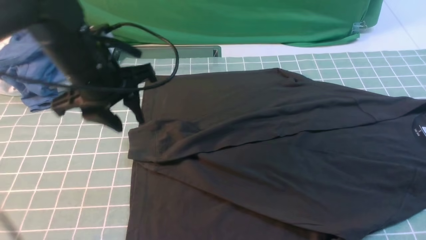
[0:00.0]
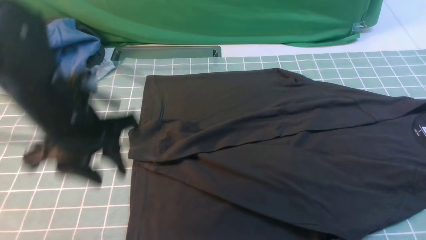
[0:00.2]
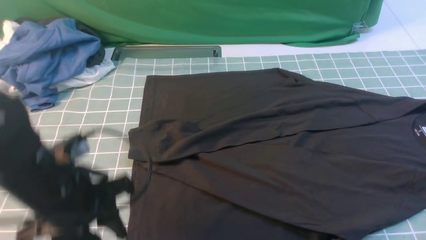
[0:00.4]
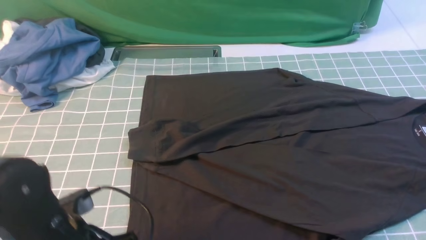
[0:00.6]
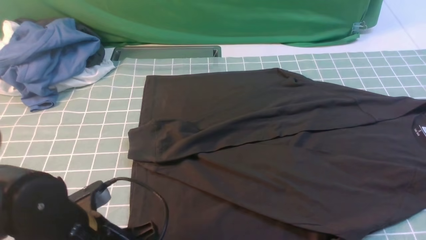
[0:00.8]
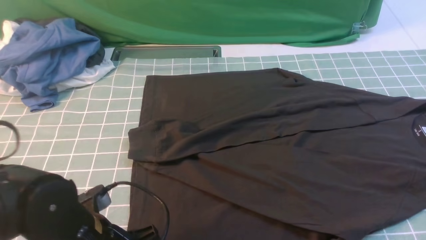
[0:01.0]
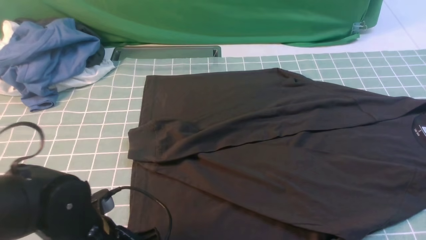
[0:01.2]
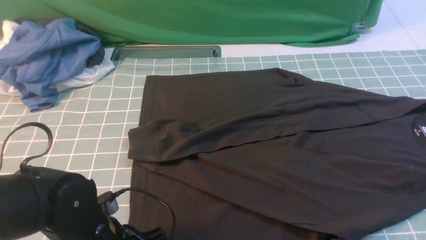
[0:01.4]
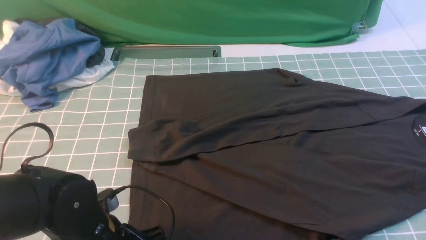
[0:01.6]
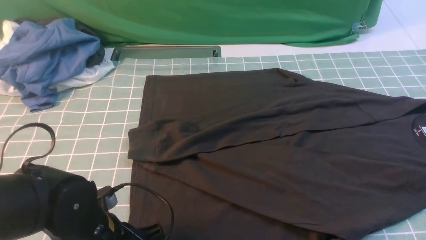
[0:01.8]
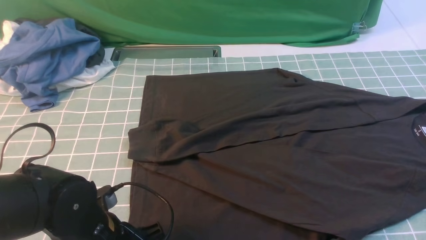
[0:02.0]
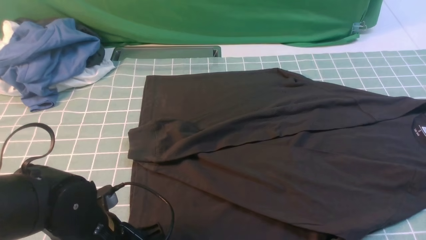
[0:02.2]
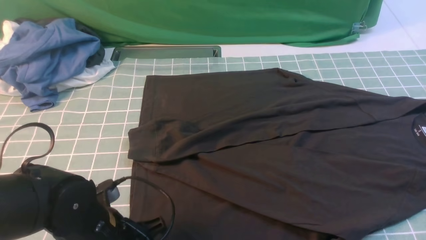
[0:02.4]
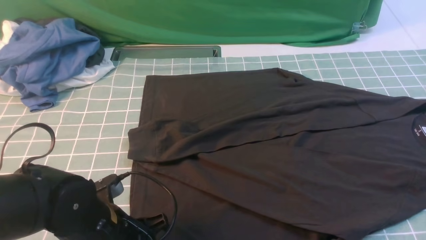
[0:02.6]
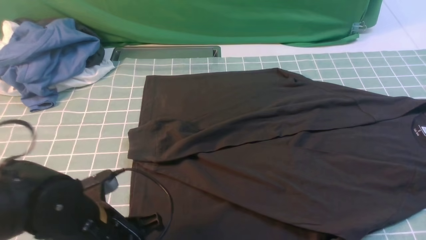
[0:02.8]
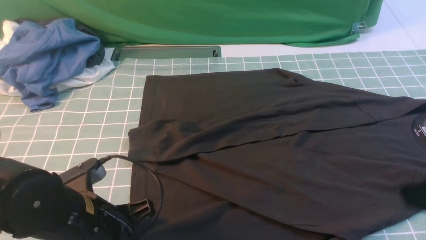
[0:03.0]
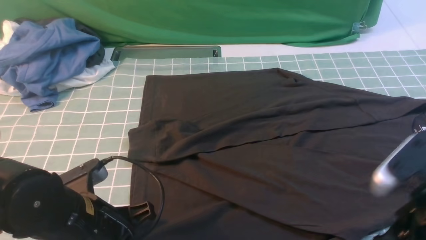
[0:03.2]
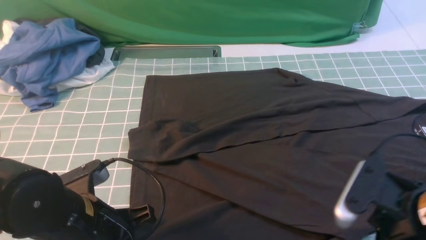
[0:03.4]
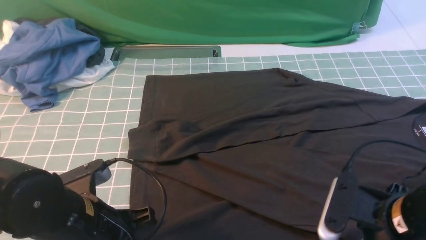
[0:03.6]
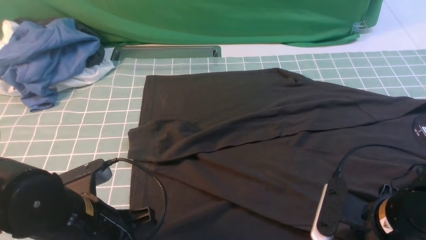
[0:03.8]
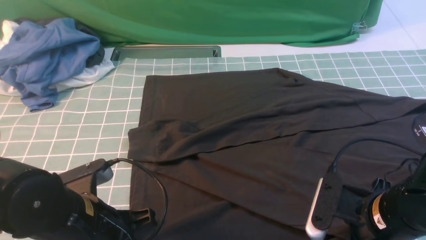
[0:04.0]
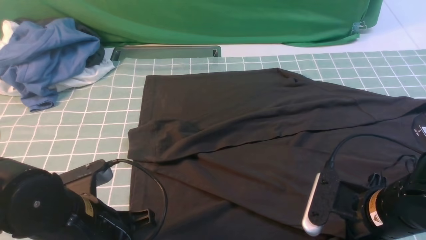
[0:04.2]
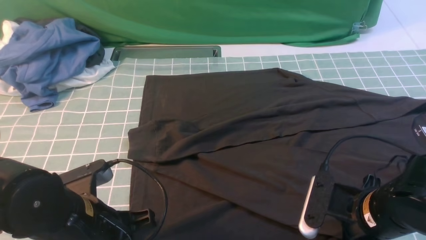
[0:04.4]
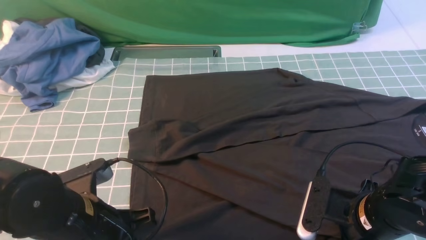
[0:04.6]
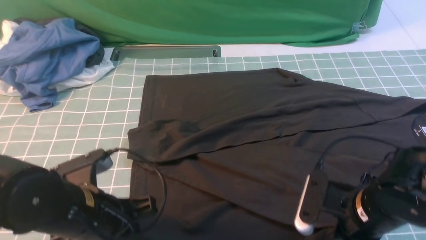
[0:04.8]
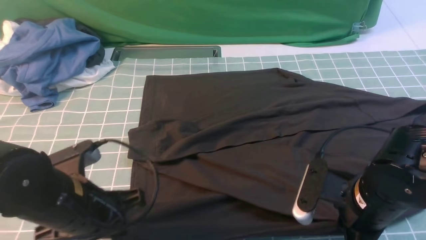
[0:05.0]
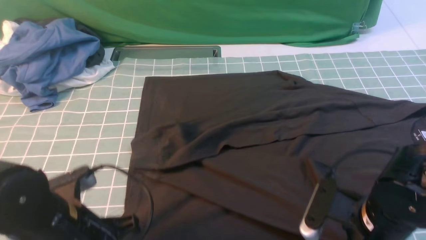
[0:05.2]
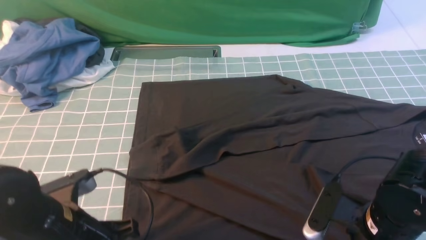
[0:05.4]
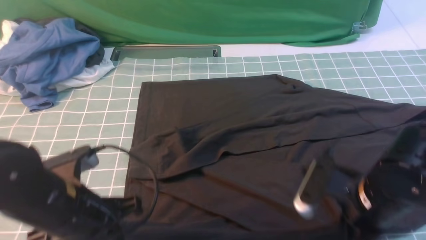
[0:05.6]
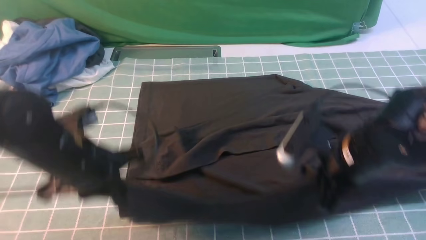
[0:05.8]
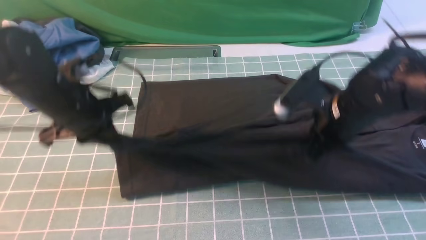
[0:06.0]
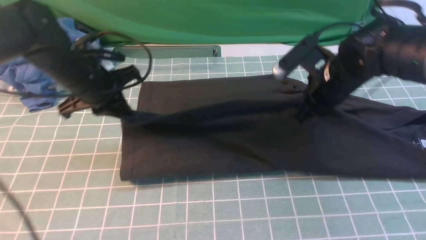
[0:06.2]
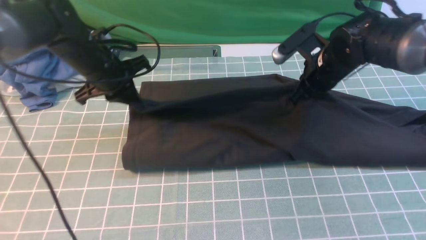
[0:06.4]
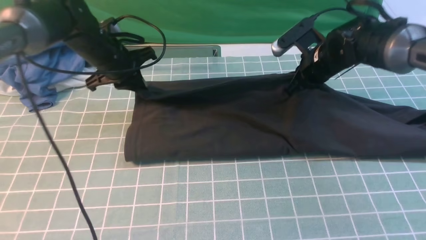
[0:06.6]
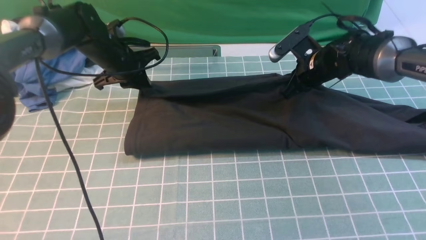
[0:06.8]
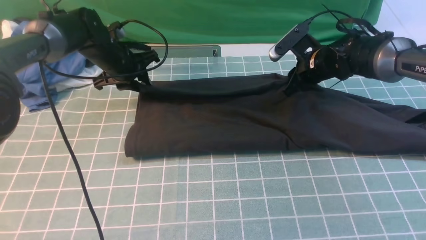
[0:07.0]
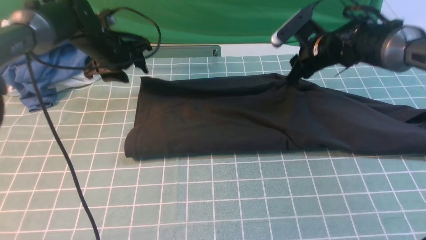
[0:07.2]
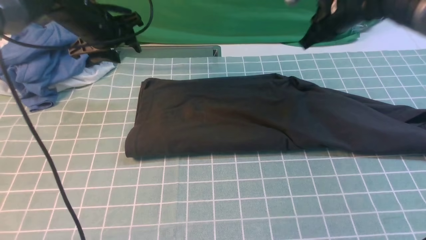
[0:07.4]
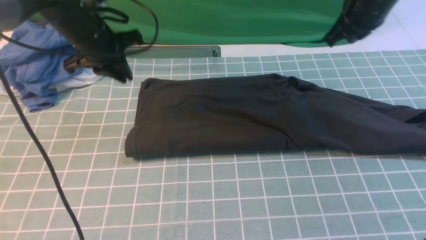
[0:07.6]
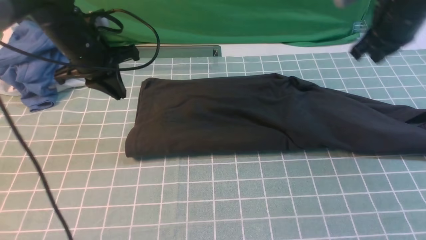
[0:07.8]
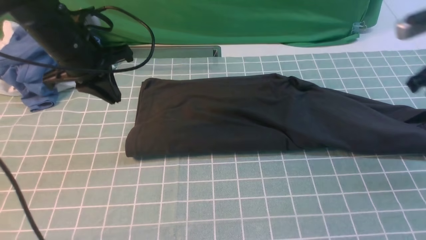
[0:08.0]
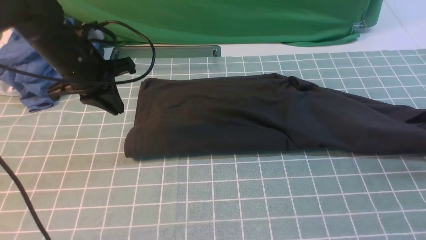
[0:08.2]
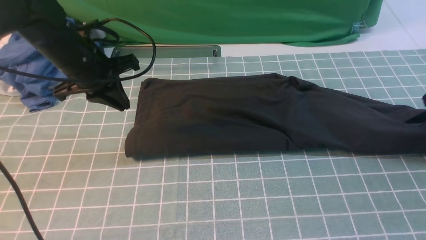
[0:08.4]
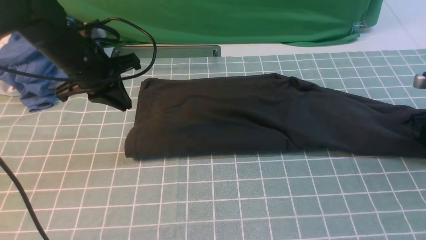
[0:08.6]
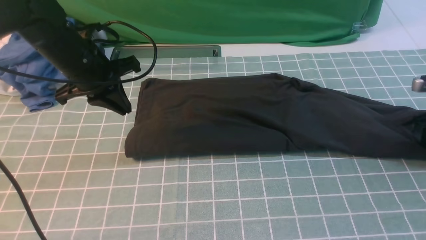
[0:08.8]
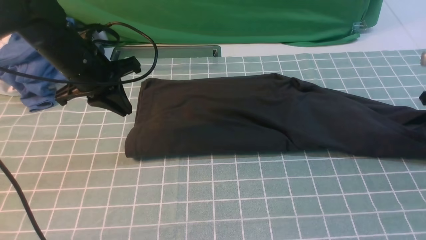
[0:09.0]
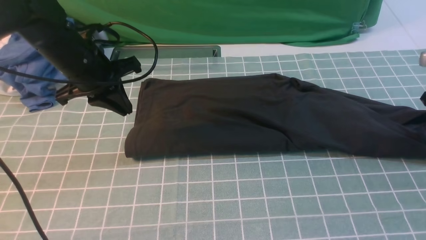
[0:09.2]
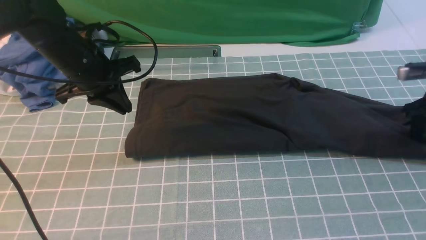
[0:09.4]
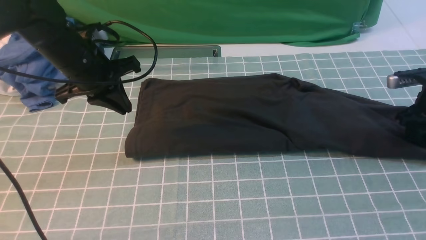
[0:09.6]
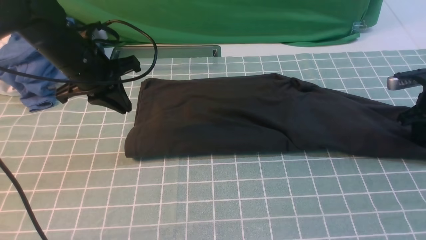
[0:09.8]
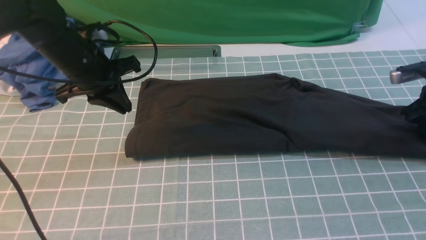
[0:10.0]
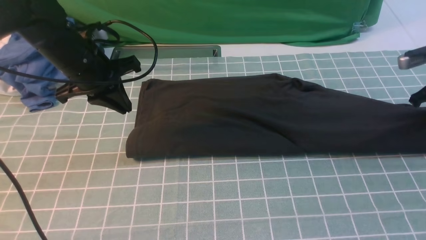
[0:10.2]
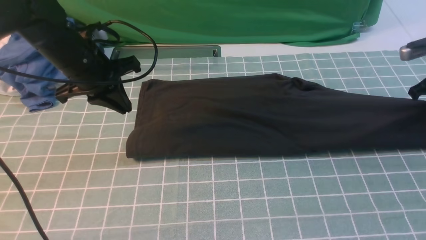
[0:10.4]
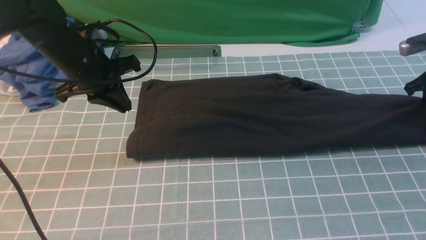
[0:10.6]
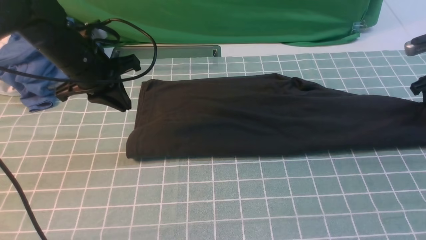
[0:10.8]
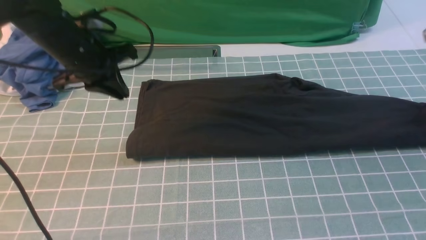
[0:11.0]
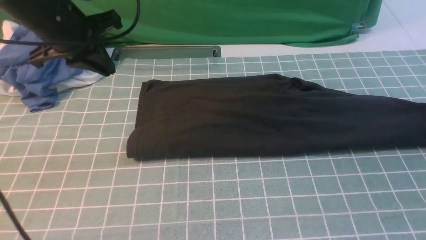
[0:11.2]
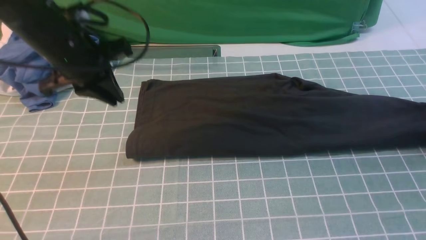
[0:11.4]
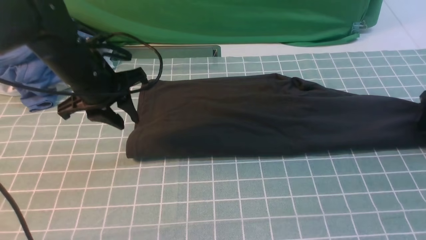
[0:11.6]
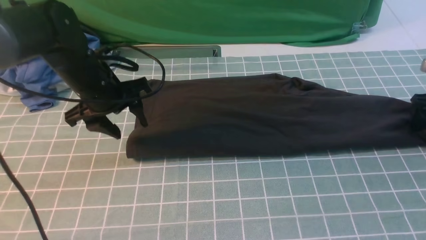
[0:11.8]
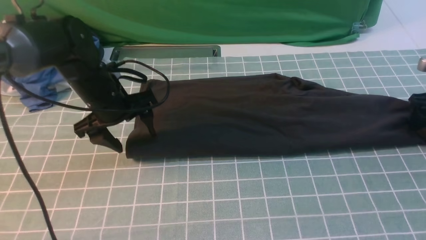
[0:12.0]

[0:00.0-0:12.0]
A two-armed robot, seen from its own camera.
Step, 0.0 to 5.4 s: use both arms simultaneously to clamp the lower edge of the clothing fabric.
Step, 5.8 to 7.4 s: use both arms to drag the lower edge of the fabric forward and fold it over the upper edge.
0.0 to 1.6 s: The left gripper moves backward and downward, some 20 cm.
1.6 to 3.0 s: The left gripper closes its fingers. Meanwhile the right gripper shifts by approximately 5 cm, and opens.
3.0 to 4.4 s: The right gripper shifts about 15 cm downward and to the left.
4.4 to 6.0 s: The left gripper moves forward, about 15 cm. The right gripper heads forward and upward, covering some 15 cm, and closes its fingers.
6.0 to 7.6 s: The right gripper heads forward, upward and to the right, covering approximately 15 cm, and opens, then closes again, while the left gripper is displaced forward by roughly 10 cm, and opens and closes again.
7.6 to 9.0 s: The left gripper moves backward, roughly 5 cm. Meanwhile the right gripper is displaced to the right and downward by about 25 cm, and opens up.
9.0 to 10.4 s: The right gripper closes.
10.4 to 12.0 s: The left gripper travels downward by some 5 cm, and opens up; the right gripper ends up roughly 5 cm from where it was, and opens.

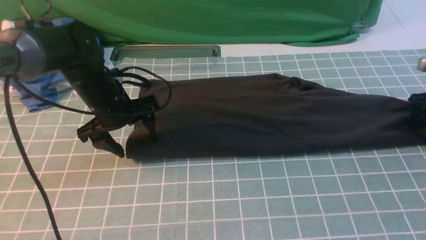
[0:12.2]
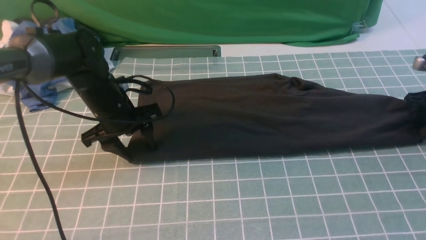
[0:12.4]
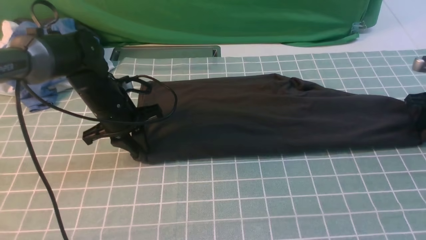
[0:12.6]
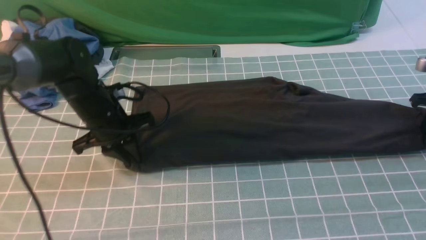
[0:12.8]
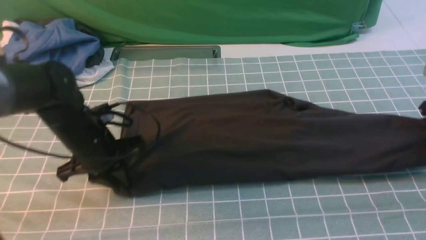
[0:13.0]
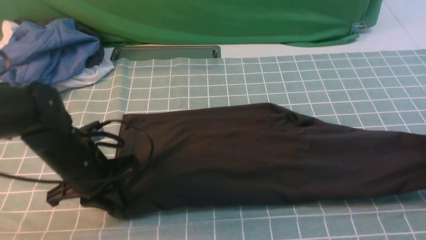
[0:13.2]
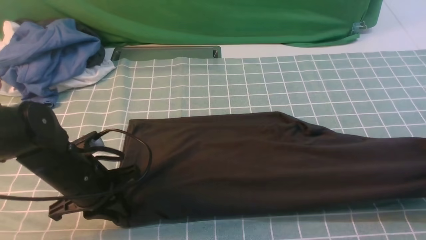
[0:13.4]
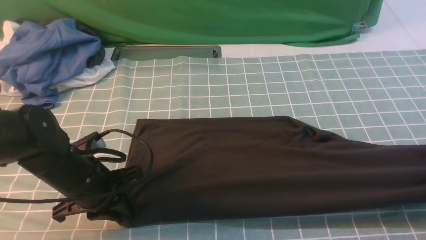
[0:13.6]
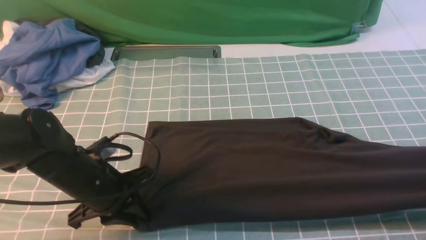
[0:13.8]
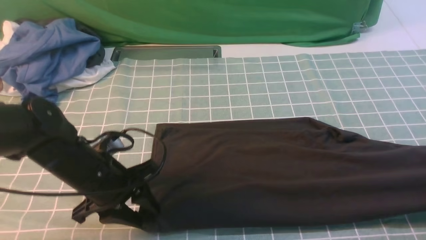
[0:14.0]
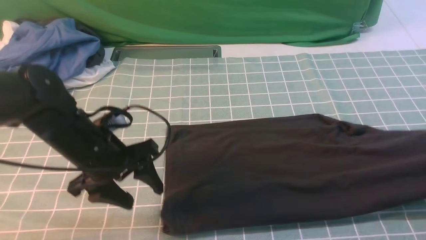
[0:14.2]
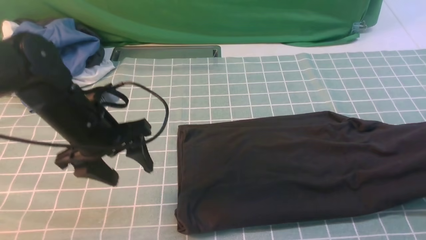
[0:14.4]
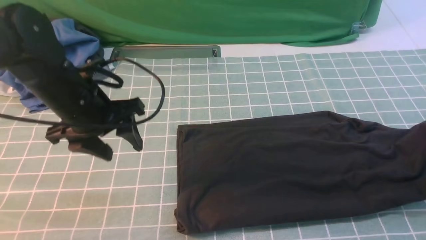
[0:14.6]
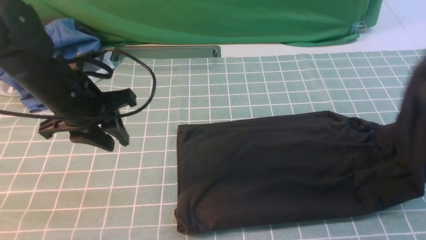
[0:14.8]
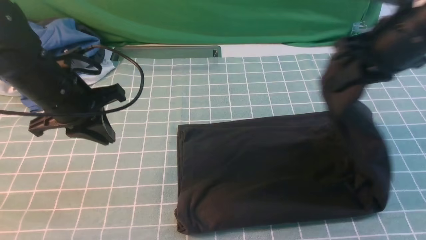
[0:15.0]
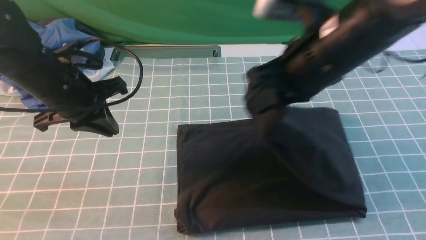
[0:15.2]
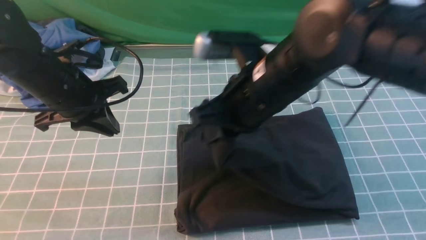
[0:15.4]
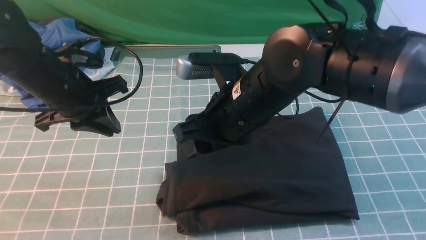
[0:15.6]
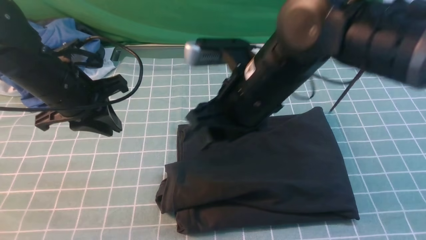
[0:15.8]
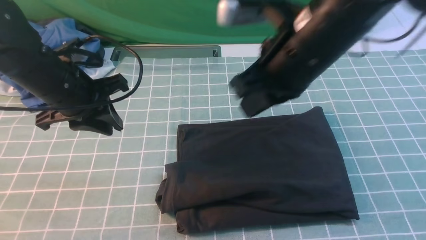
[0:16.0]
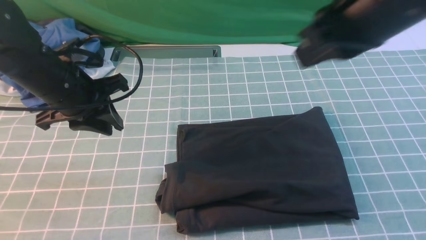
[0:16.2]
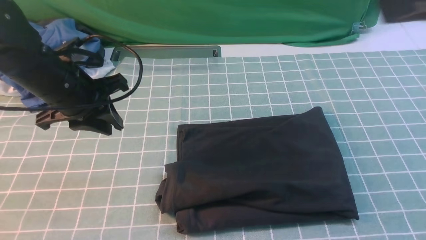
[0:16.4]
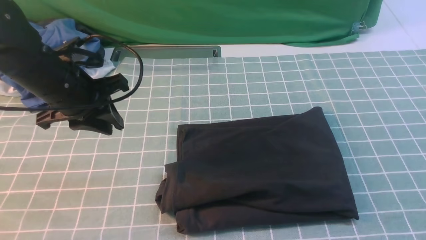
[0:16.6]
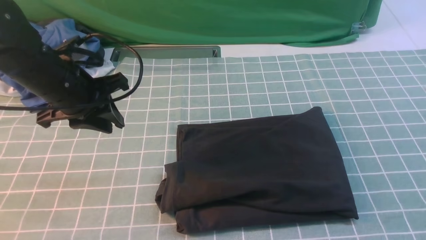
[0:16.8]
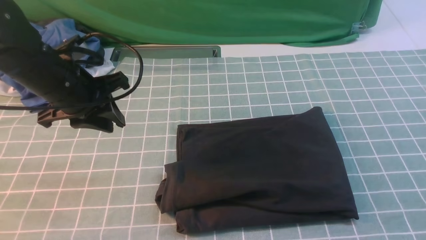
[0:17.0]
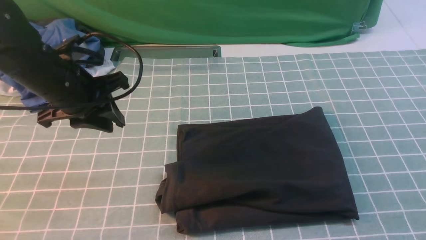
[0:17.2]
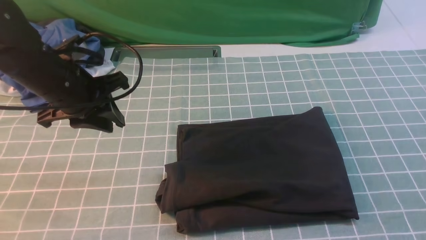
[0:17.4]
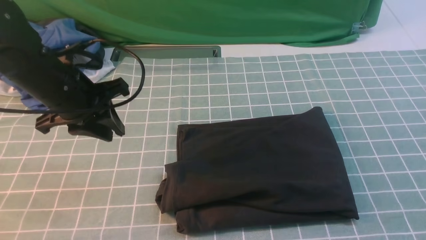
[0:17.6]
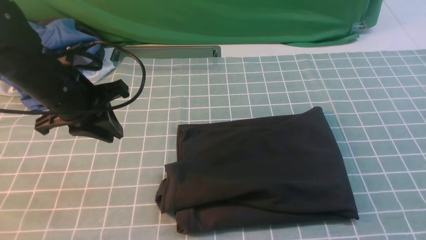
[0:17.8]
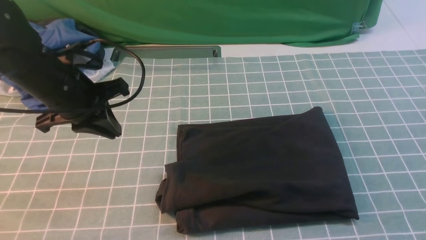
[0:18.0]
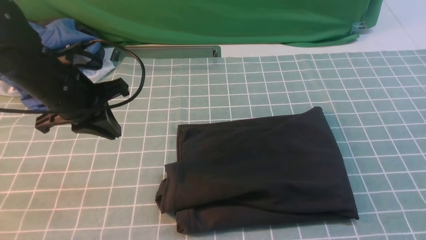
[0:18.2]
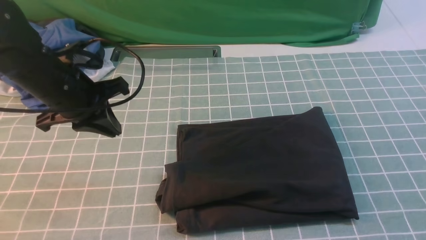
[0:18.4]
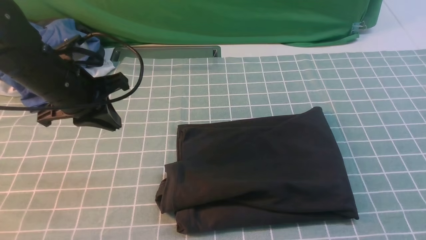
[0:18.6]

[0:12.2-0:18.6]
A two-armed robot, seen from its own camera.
Step, 14.0 to 15.8 s: use the right arm to drag the right edge of the fabric to the left and folds it over the left edge.
12.2 to 13.8 s: The right gripper goes roughly 15 cm backward and upward, and closes its fingers, while the left gripper heads backward, covering about 15 cm, and closes up.
13.8 to 15.4 s: The right gripper goes about 40 cm to the left, while the left gripper goes roughly 15 cm upward and forward, and opens, then closes again.
15.4 to 17.0 s: The right gripper moves to the right and backward, about 35 cm, and closes up.
